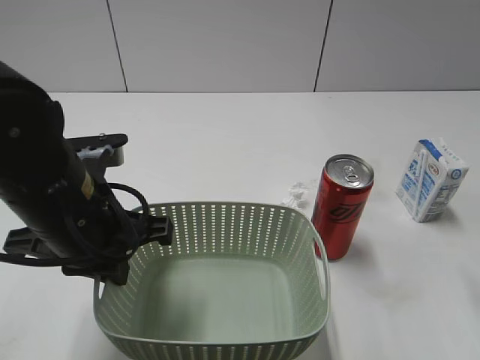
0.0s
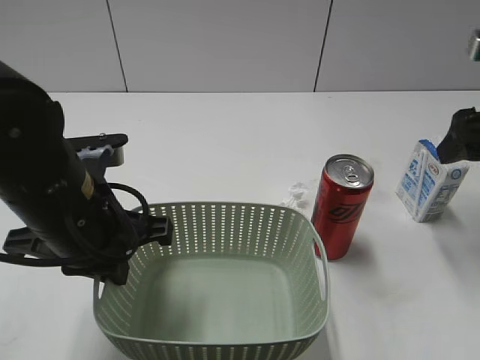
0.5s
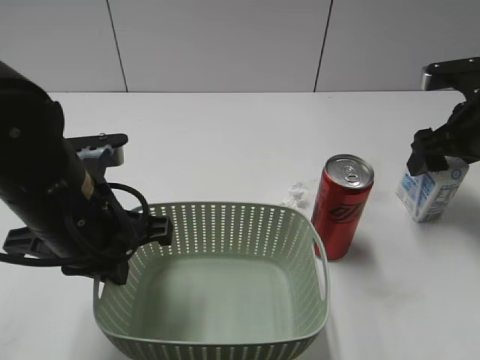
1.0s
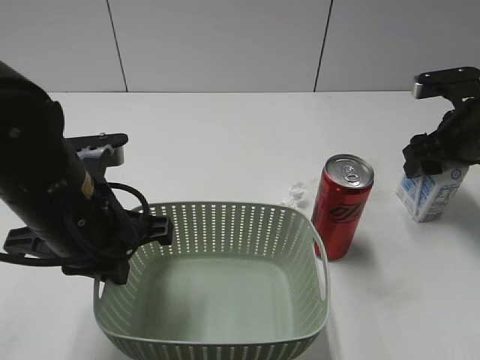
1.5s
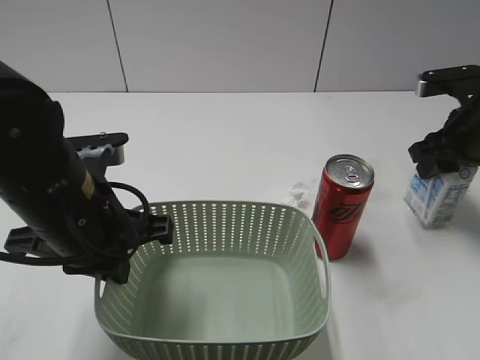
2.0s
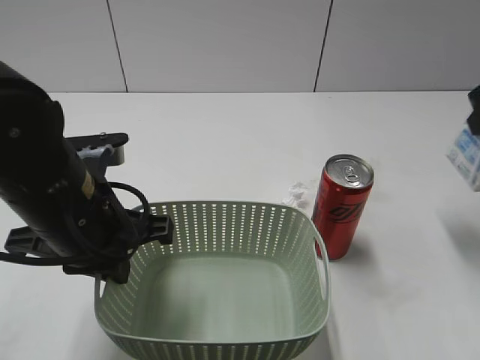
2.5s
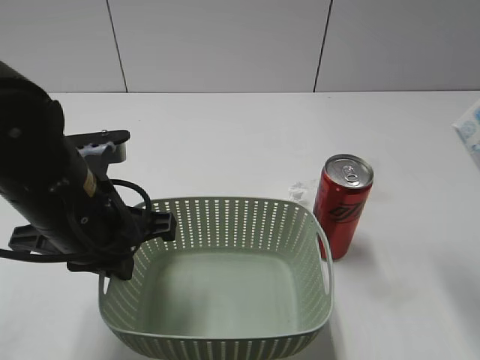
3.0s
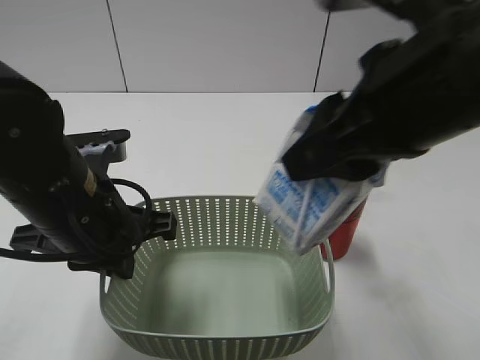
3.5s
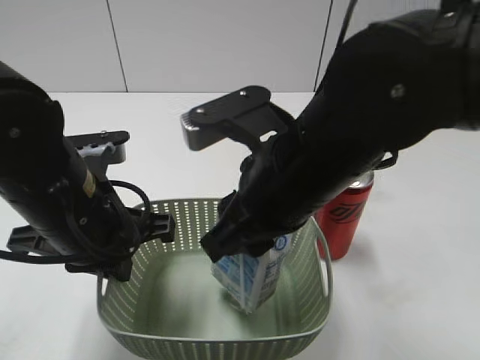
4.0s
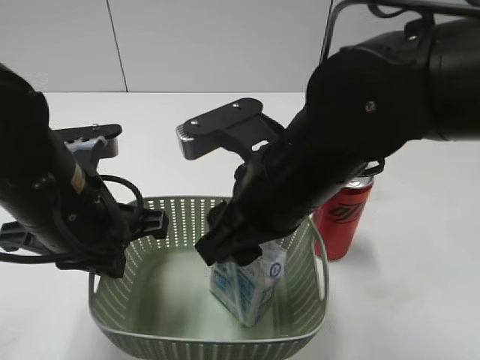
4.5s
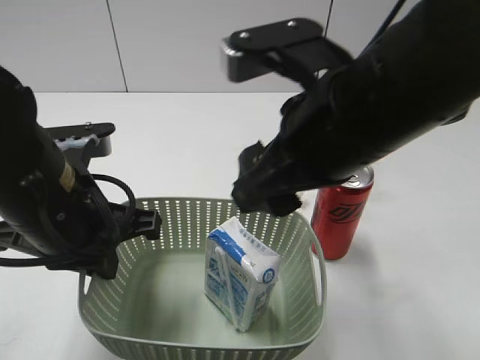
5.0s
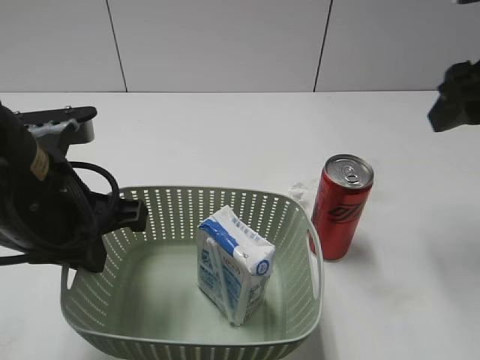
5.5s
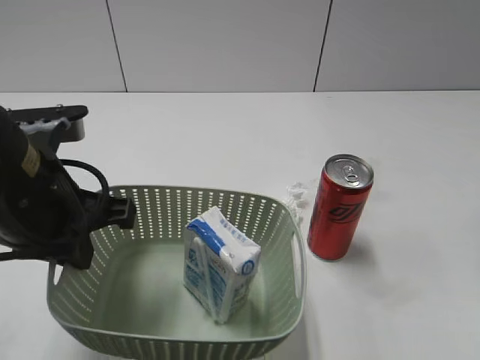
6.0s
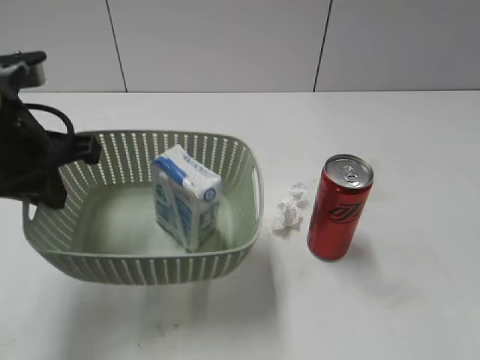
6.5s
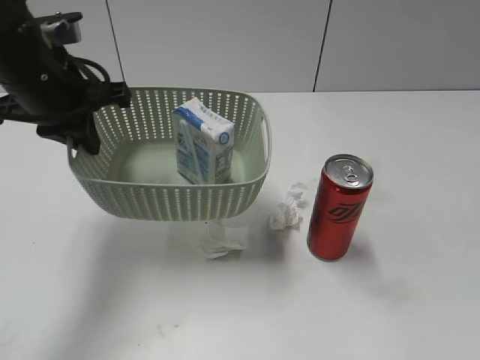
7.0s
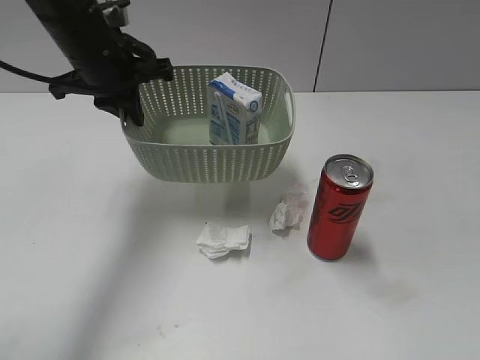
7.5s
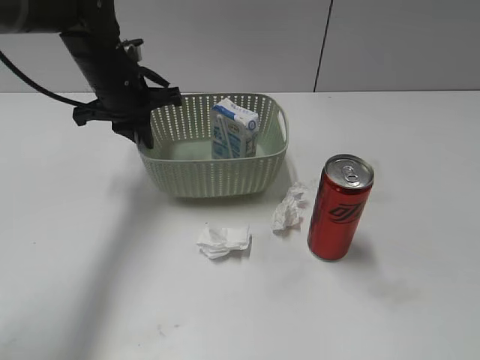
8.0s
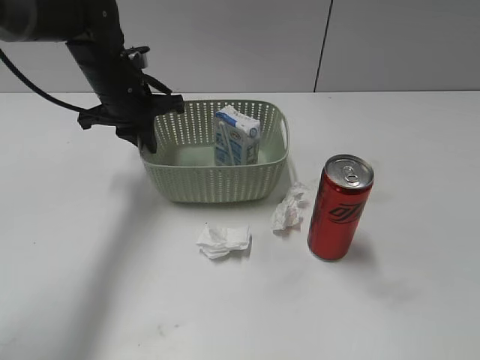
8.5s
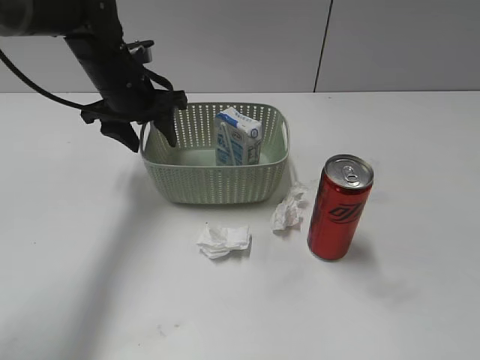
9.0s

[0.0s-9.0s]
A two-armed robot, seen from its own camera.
Step, 0.0s to 1.5s: Grasp the milk with right gripper.
Step, 2.0s to 5.0s: Place the milk in the basket with right gripper.
0.0s to 2.0s: The right gripper shifts some 20 cm forward and downward, and closes up.
2.0s to 4.5s: The right gripper heads to the left and backward, covering some 30 cm, and opens its fingers.
4.5s to 7.0s: The left gripper travels forward and upward by roughly 15 cm; the right gripper goes about 30 cm to the right and backward.
7.0s to 9.0s: The left gripper moves forward and downward, some 15 cm, and opens up.

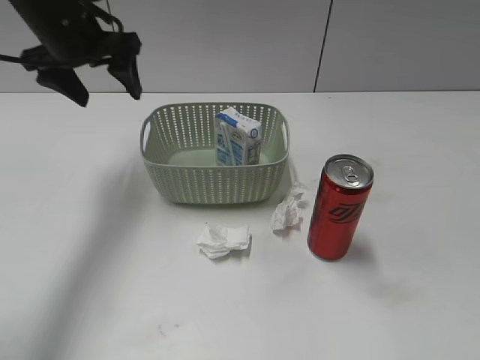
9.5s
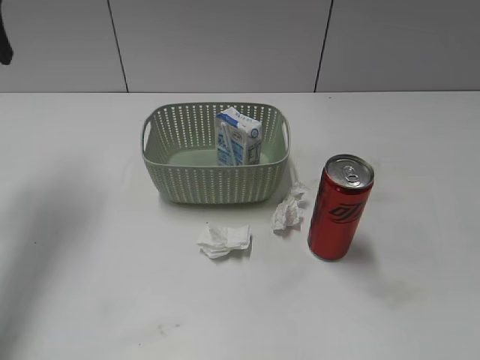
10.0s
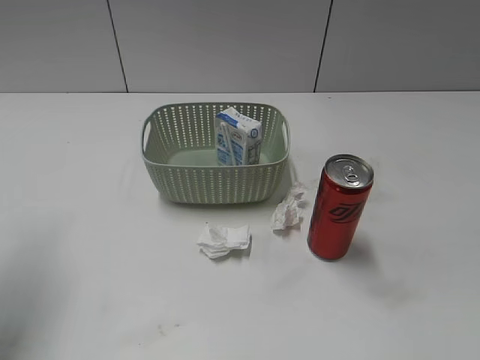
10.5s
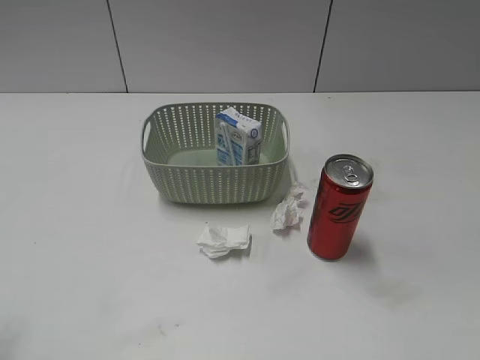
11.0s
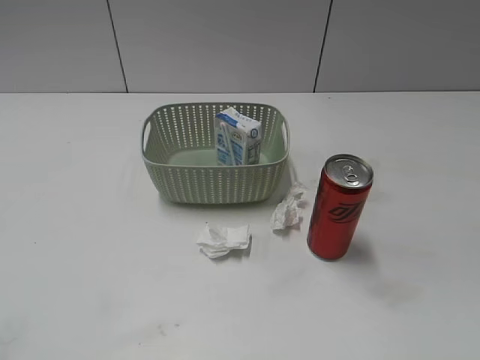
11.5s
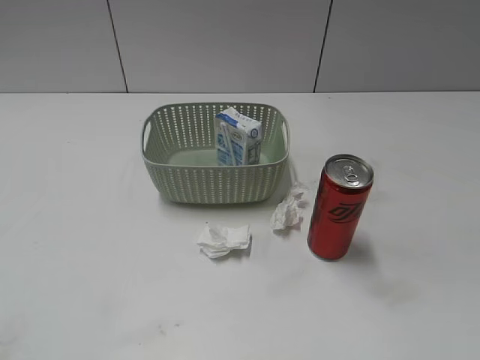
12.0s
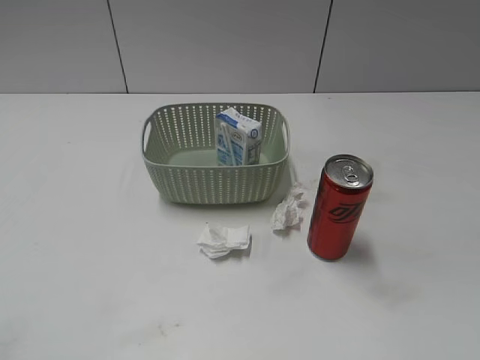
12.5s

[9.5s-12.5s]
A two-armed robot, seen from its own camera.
9.5s to 11.0s: The left gripper travels backward by some 30 cm.
